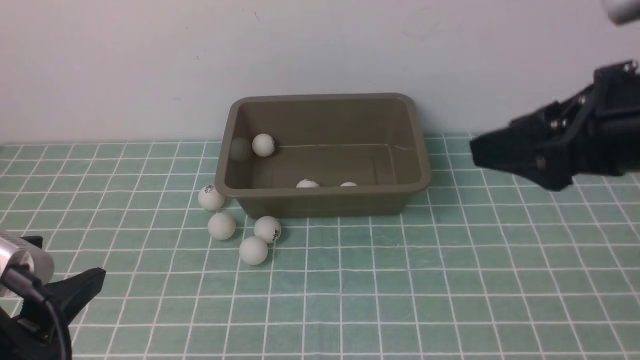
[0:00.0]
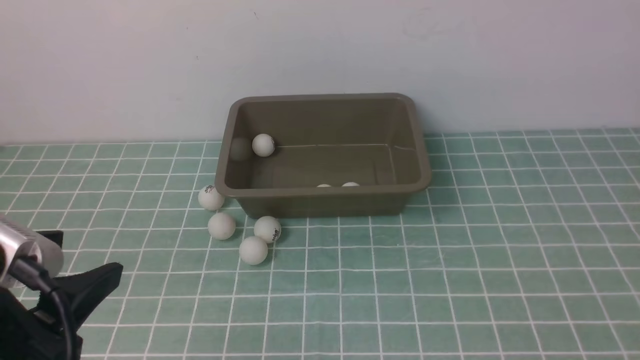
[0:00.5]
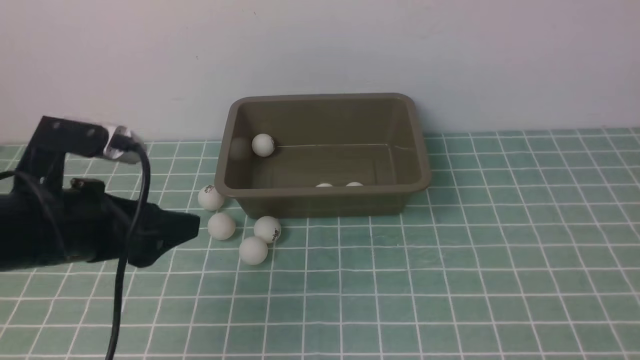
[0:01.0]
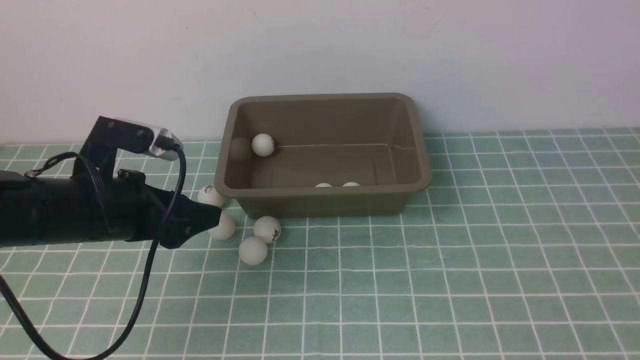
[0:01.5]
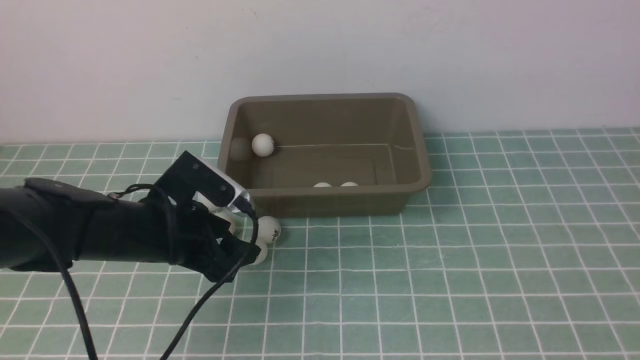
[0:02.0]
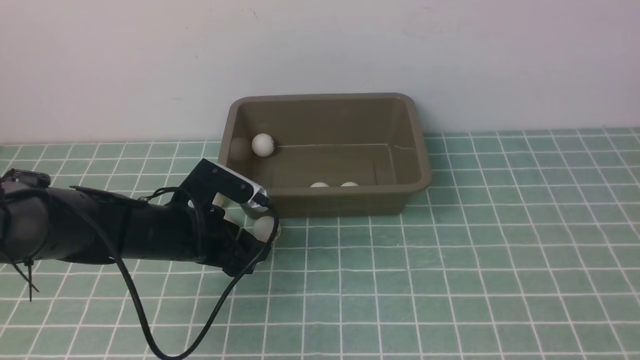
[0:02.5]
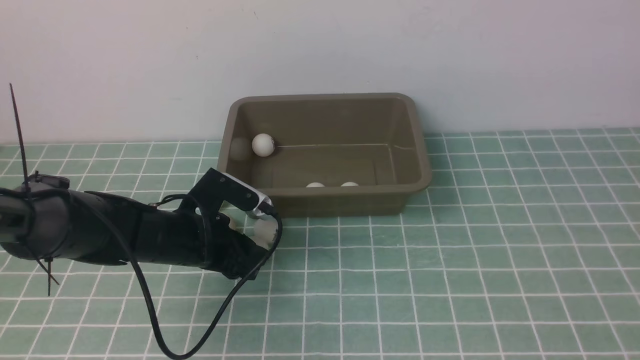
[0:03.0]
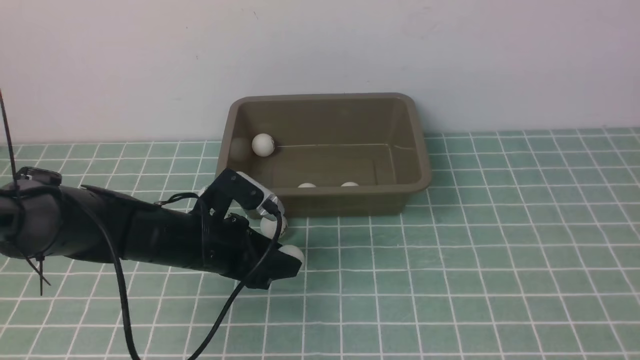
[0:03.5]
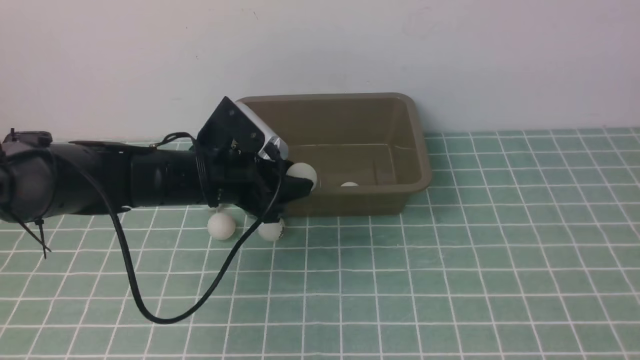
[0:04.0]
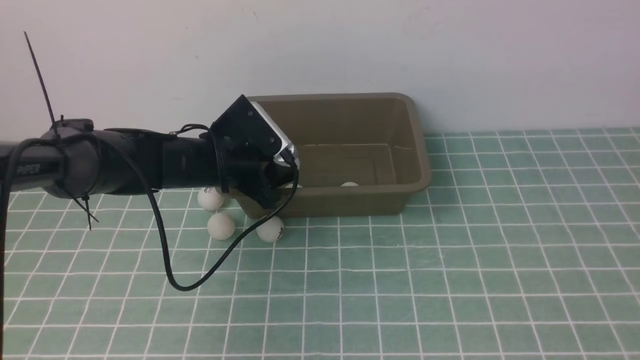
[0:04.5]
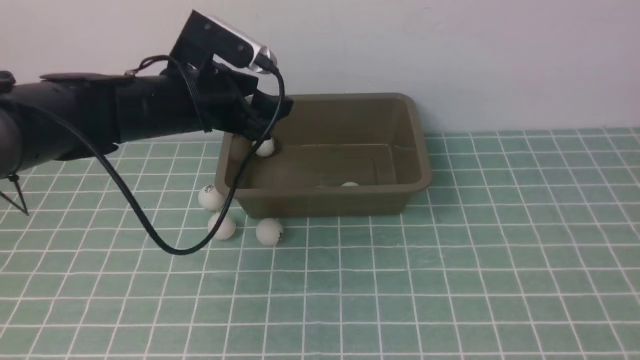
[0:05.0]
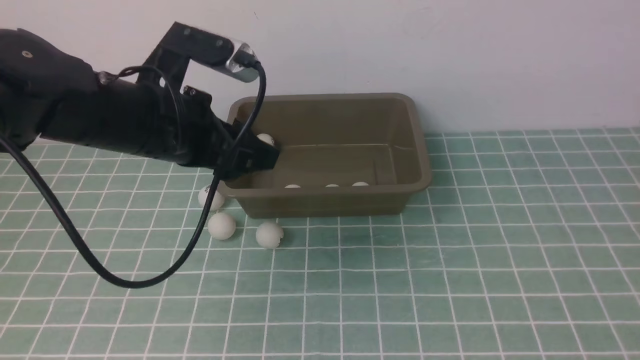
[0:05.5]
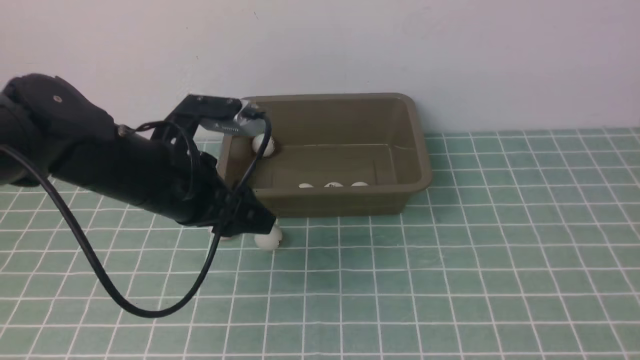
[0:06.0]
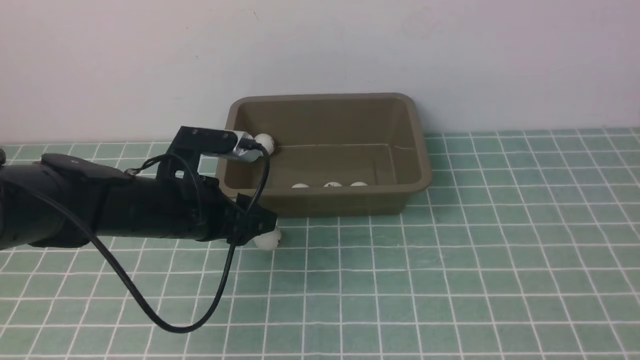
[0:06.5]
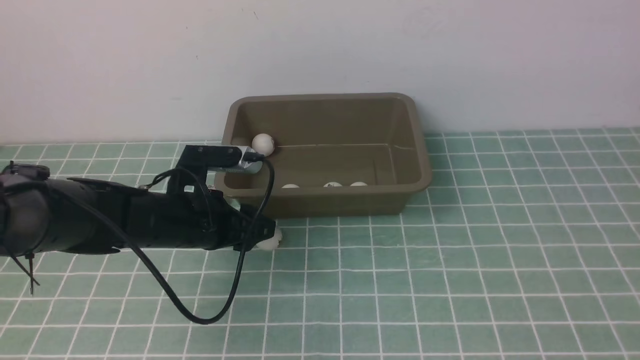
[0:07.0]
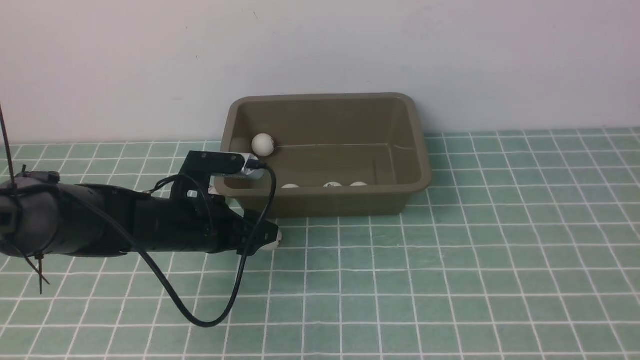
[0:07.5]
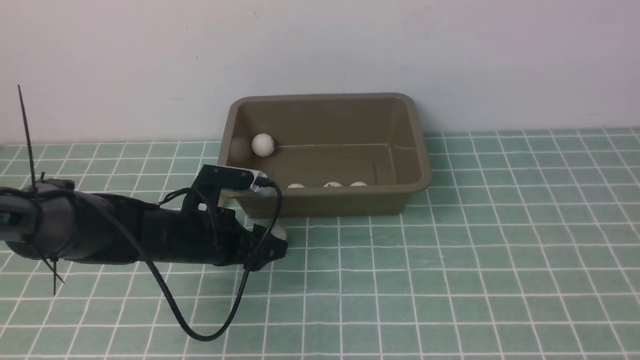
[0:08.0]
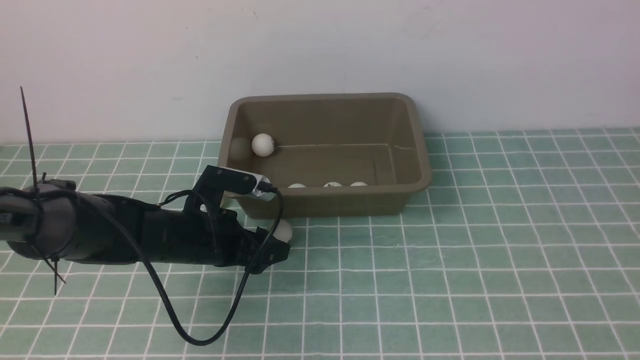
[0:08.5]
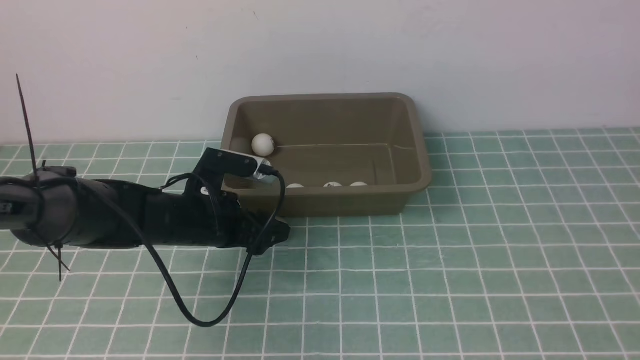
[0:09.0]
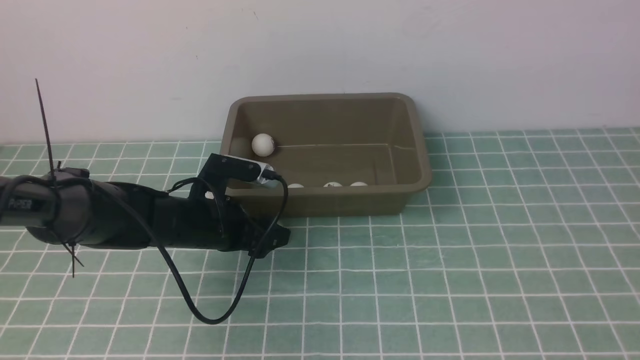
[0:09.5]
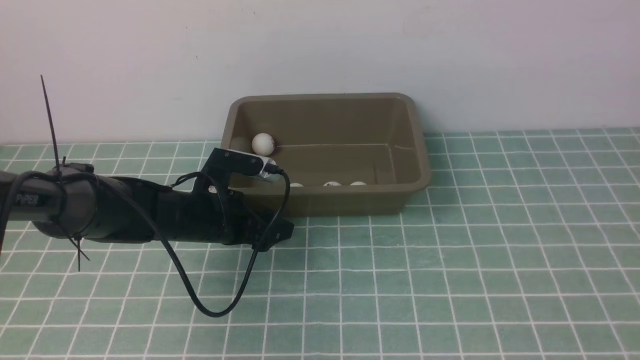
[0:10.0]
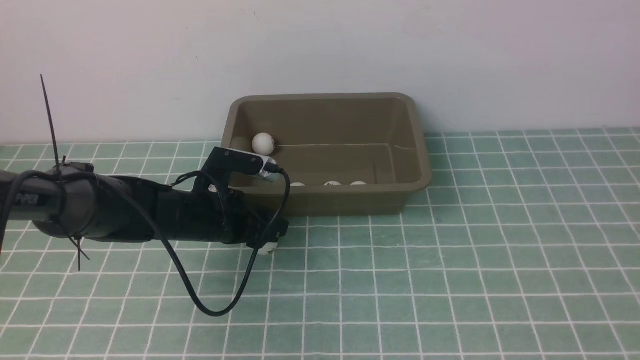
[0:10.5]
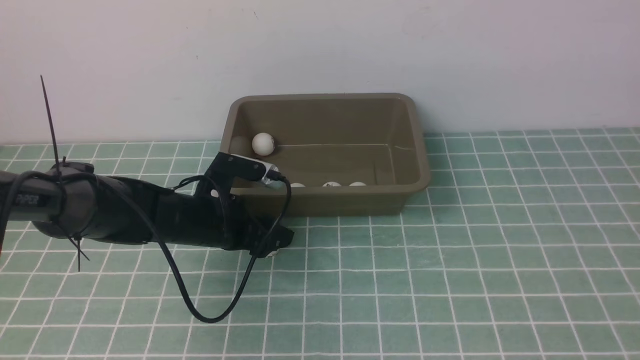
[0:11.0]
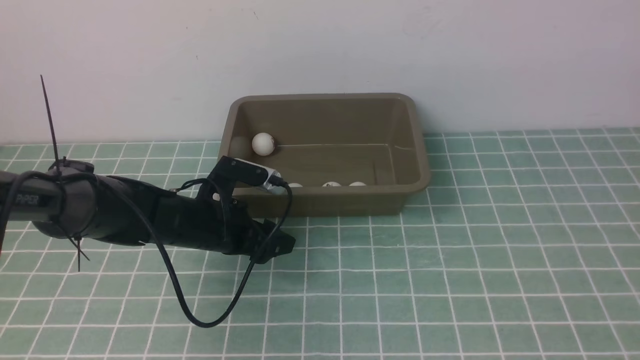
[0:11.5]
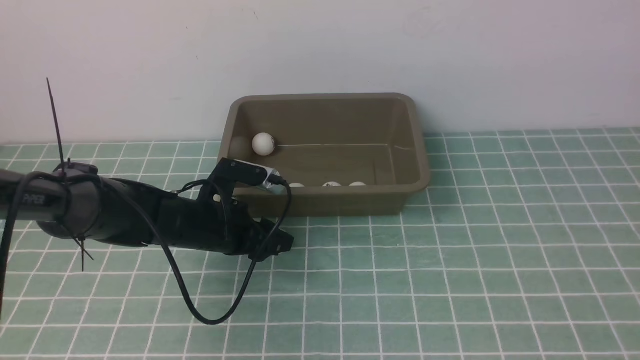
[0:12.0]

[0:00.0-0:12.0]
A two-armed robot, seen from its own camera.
Step, 0:00.0 to 0:03.0: use the left arm to clamp the table tennis ball closest to it.
Step, 0:04.0 to 0:04.5: use the left arm to put the table tennis ball into the box.
0:00.0 to 0:02.0: The left gripper goes some 25 cm forward and downward; the right gripper moves to the right, some 5 cm.
0:02.0 to 0:04.0: The left gripper travels forward by some 5 cm, and closes.
0:04.0 to 0:06.0: The left gripper goes approximately 5 cm upward, and opens, then closes once more.
0:06.0 to 0:08.0: The left gripper travels downward by approximately 15 cm, and opens.
0:08.0 to 0:10.0: The grippers make only small movements.
0:10.0 to 0:12.0: The left gripper closes.

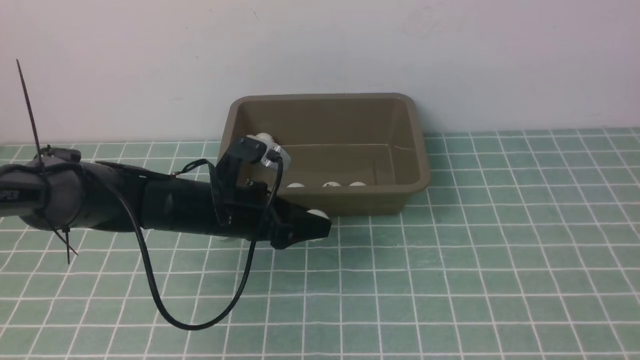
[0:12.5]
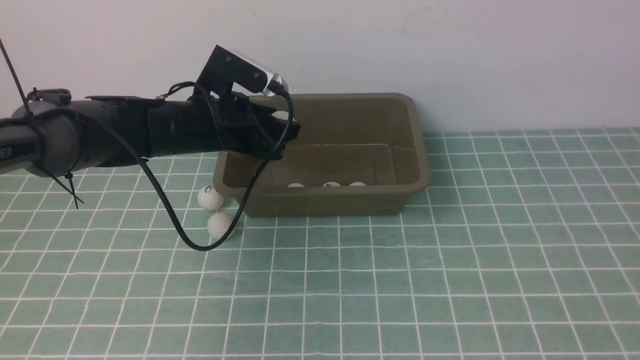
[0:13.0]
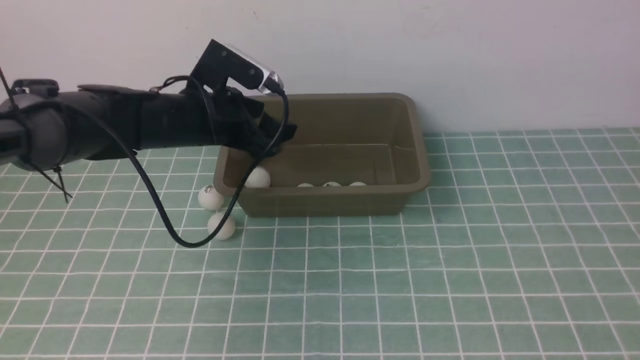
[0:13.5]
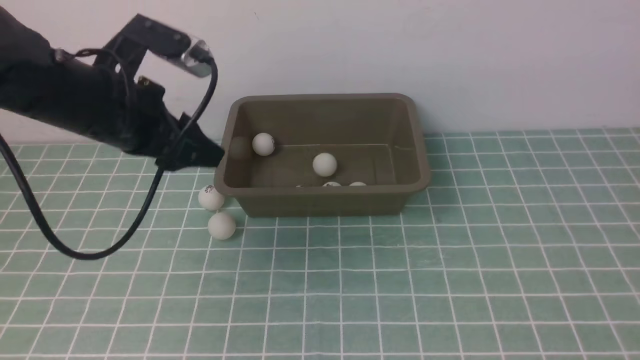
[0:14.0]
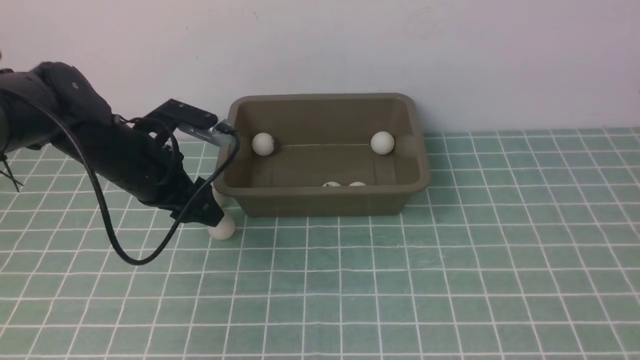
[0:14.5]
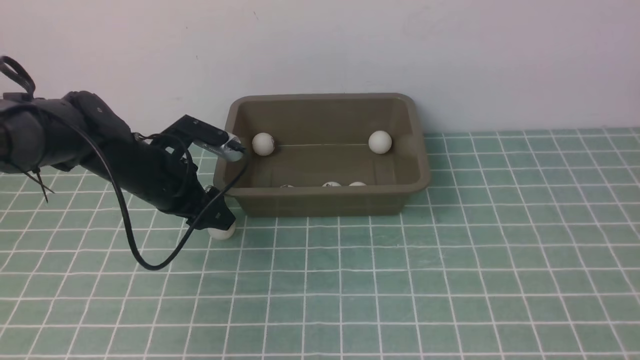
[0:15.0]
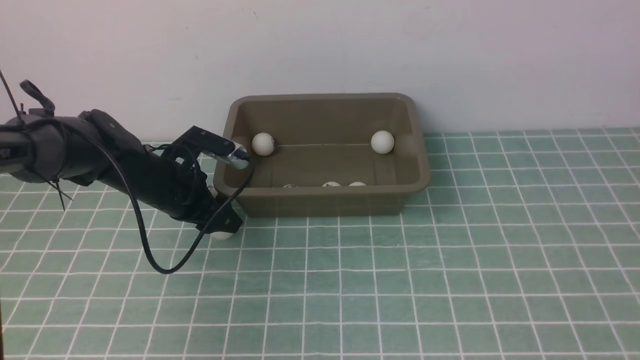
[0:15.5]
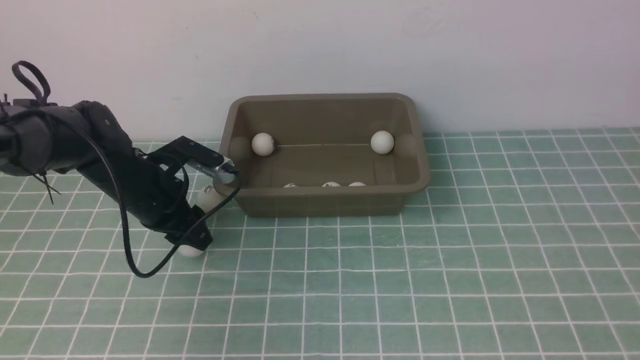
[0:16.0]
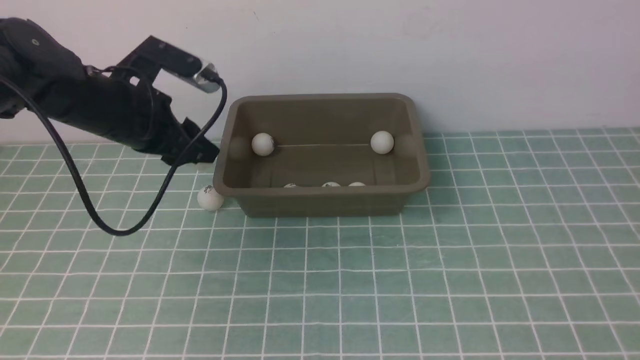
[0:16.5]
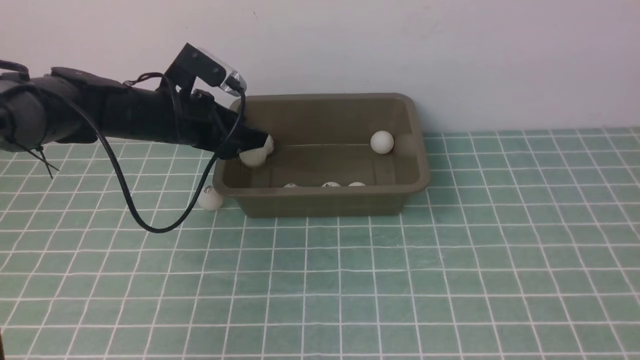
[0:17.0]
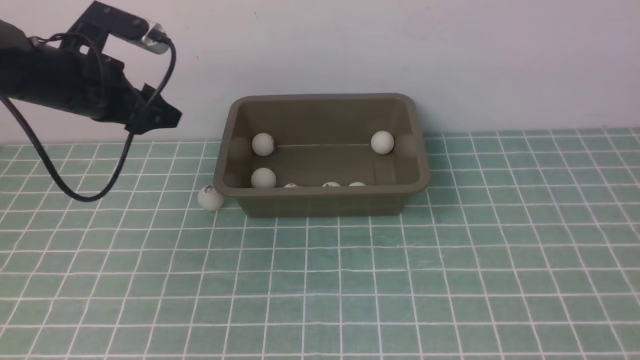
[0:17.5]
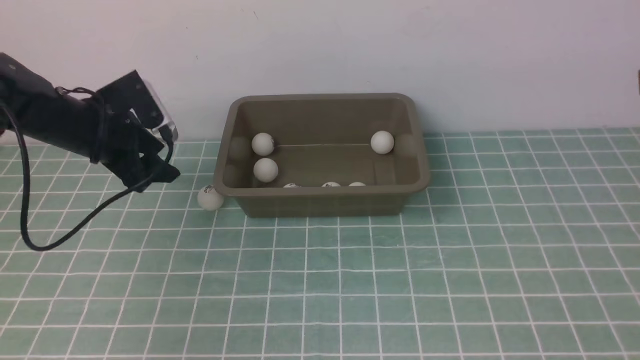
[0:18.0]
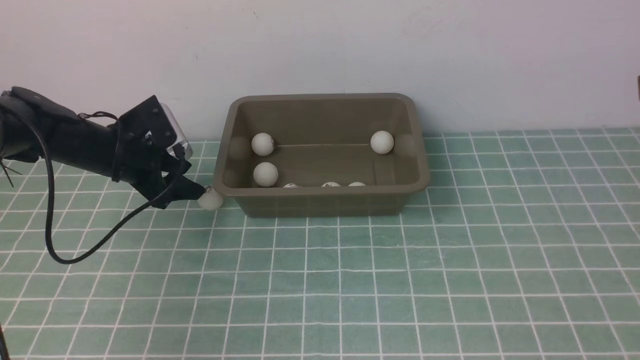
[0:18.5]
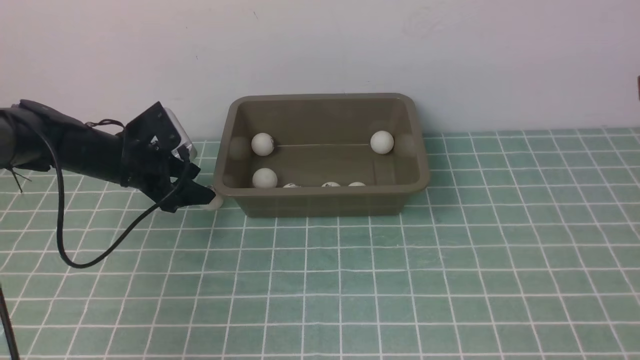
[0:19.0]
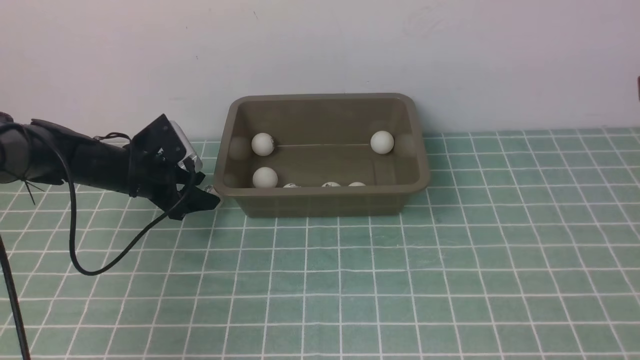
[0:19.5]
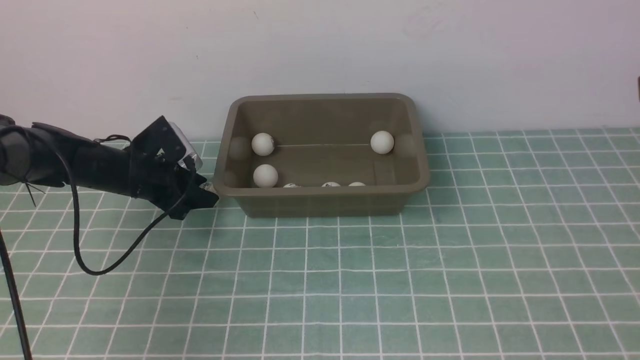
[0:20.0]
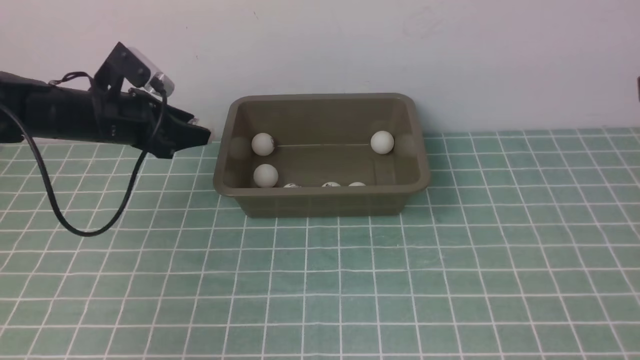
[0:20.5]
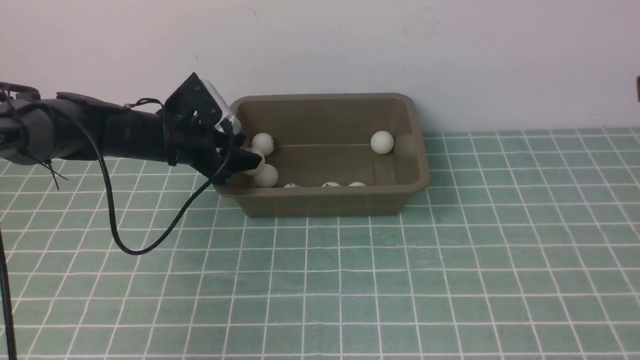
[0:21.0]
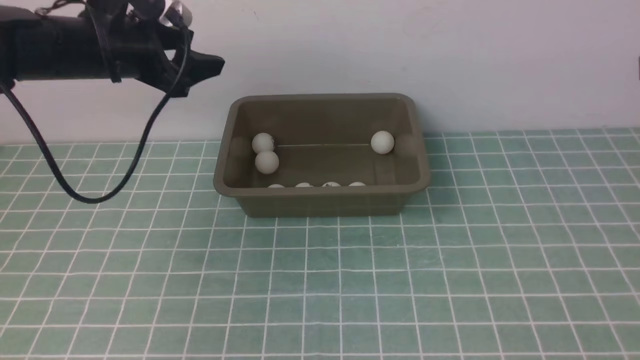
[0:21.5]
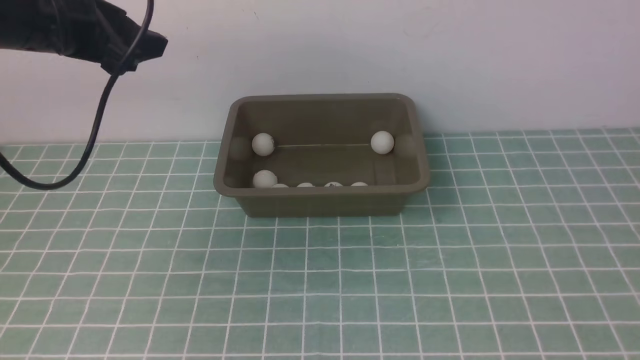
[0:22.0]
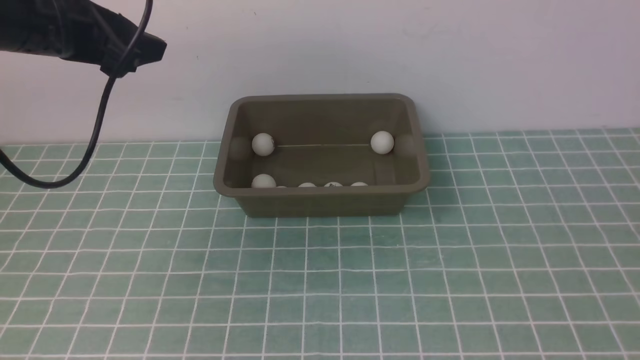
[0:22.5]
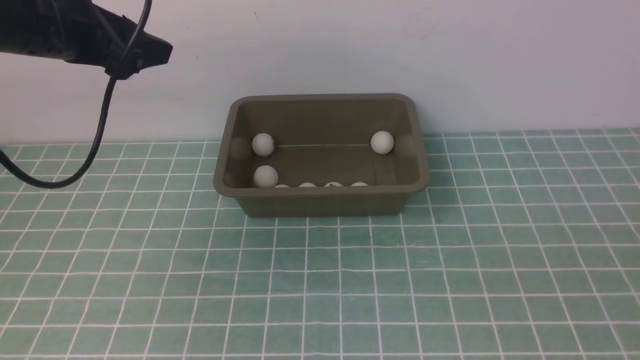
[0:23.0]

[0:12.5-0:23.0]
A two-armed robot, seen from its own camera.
Step, 0:13.0 to 0:13.5: use the left arm to put the table tennis ball into the box.
Step, 0:14.0 to 0:16.0: use the left arm to clamp the table tennis ball closest to it.
Step, 0:16.5 to 0:17.0: use the left arm to put the table tennis ball into the box.
Step, 0:17.5 to 0:20.0: use the left arm to clamp the table tennis ball closest to it.
Step, 0:20.5 to 0:21.0: use the left arm to put the table tennis ball into the box.
0:12.5 to 0:14.5: The left gripper travels to the left and upward by about 10 cm, and opens.
0:14.5 to 0:16.5: The left gripper goes downward and returns, roughly 5 cm each way, and closes up.
0:16.5 to 0:19.0: The left gripper goes about 10 cm downward and to the left, and opens up.
0:19.0 to 0:21.0: The left gripper shifts approximately 5 cm to the right, and closes and opens again.
0:21.0 to 0:23.0: The right gripper heads backward and downward, covering about 20 cm. Meanwhile the left gripper heads upward and backward, covering approximately 20 cm.
